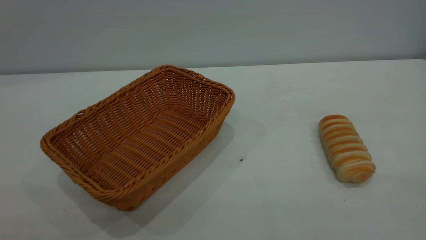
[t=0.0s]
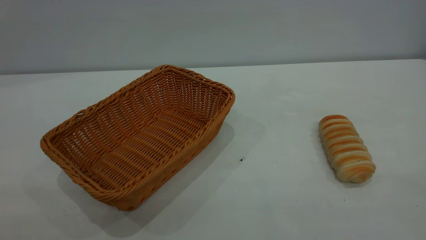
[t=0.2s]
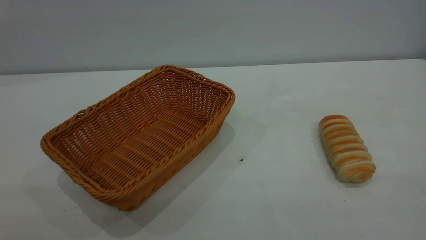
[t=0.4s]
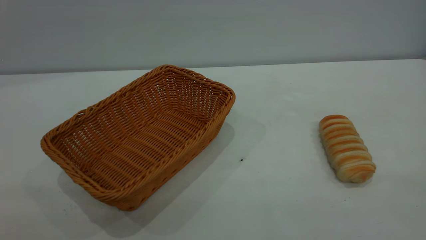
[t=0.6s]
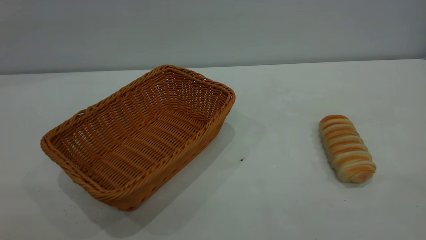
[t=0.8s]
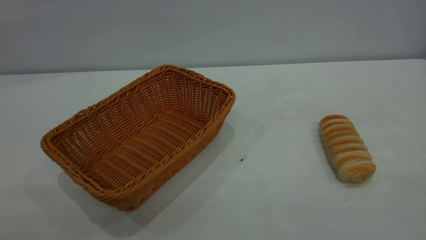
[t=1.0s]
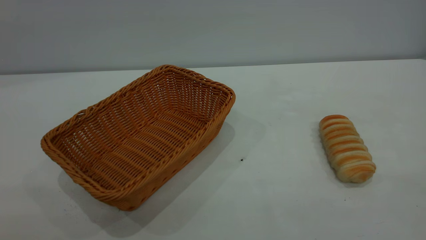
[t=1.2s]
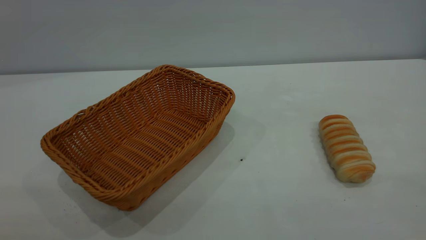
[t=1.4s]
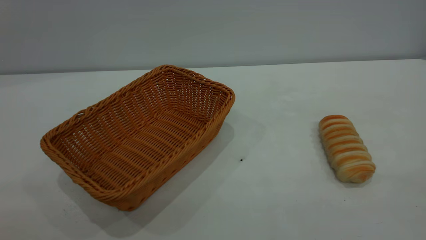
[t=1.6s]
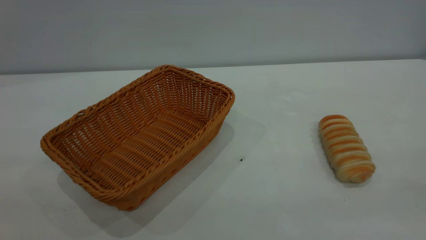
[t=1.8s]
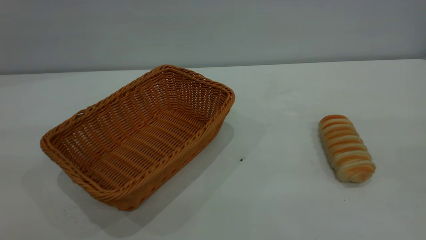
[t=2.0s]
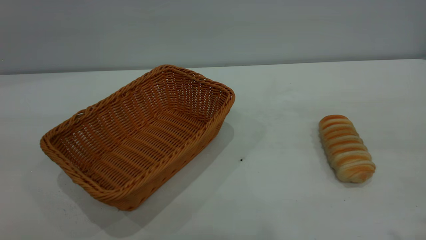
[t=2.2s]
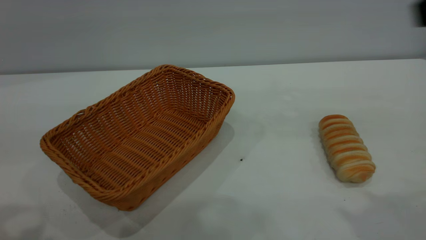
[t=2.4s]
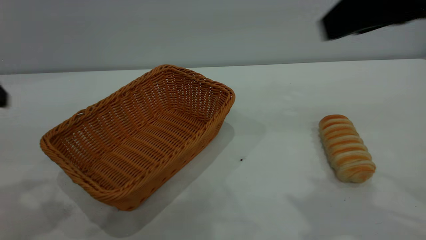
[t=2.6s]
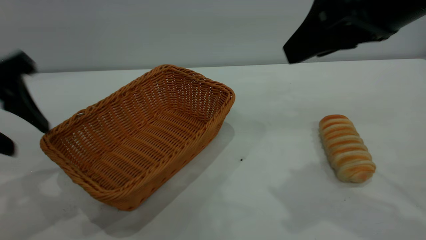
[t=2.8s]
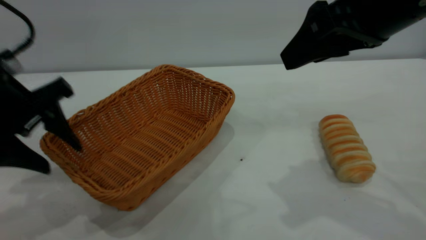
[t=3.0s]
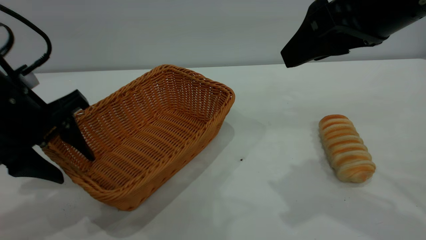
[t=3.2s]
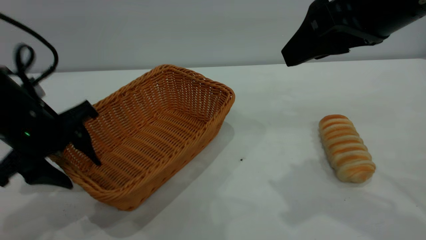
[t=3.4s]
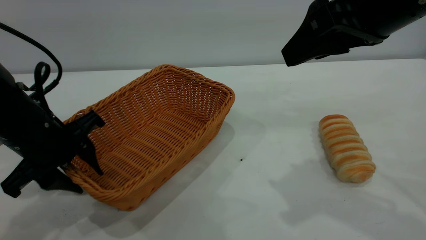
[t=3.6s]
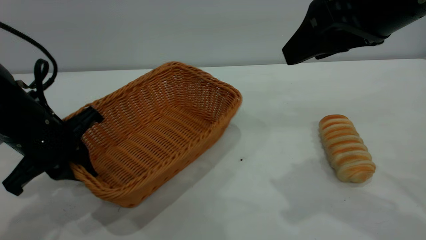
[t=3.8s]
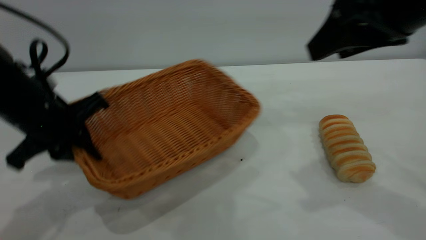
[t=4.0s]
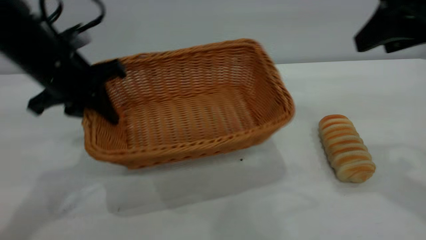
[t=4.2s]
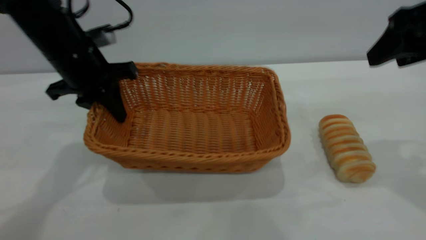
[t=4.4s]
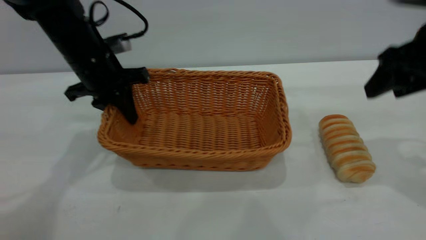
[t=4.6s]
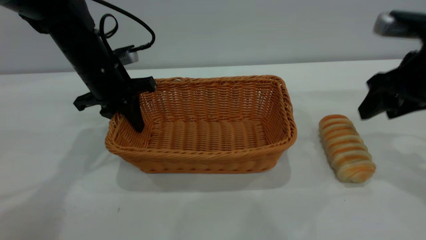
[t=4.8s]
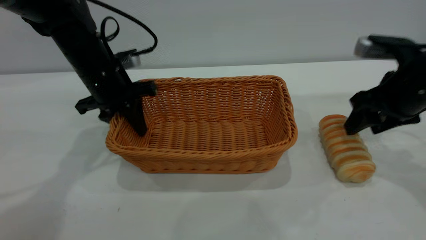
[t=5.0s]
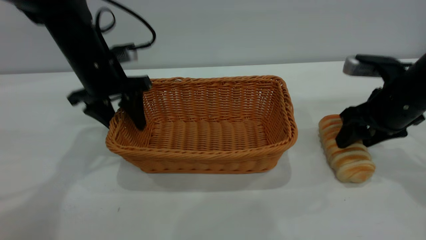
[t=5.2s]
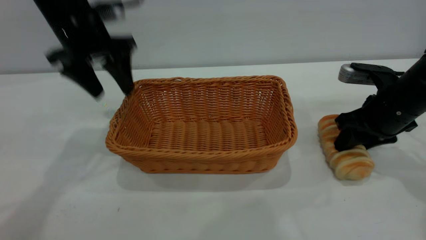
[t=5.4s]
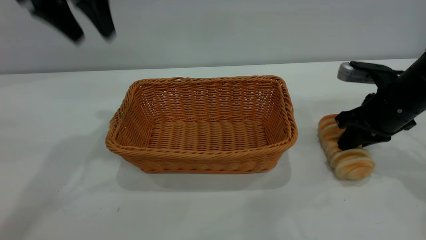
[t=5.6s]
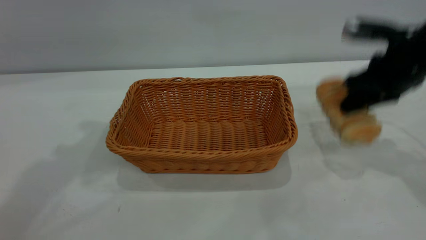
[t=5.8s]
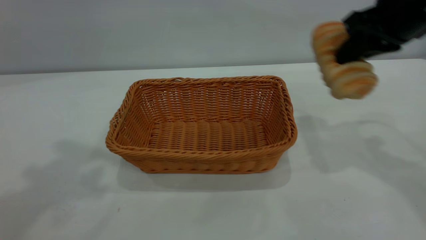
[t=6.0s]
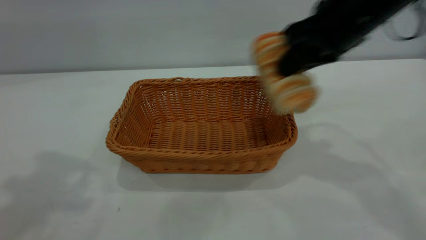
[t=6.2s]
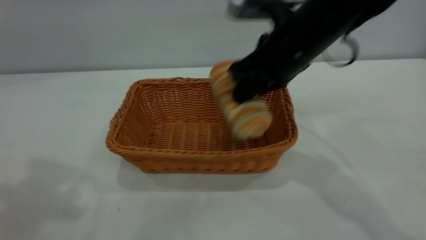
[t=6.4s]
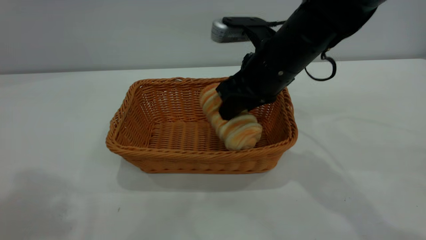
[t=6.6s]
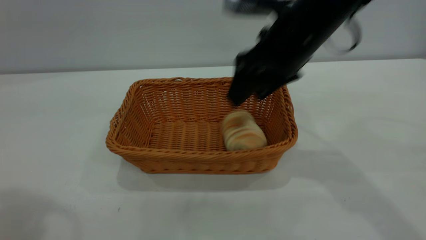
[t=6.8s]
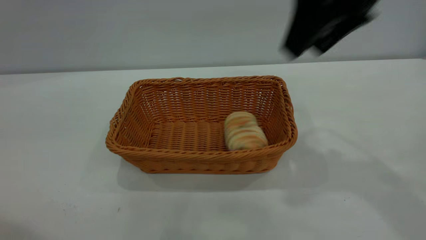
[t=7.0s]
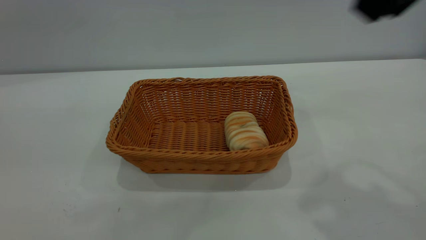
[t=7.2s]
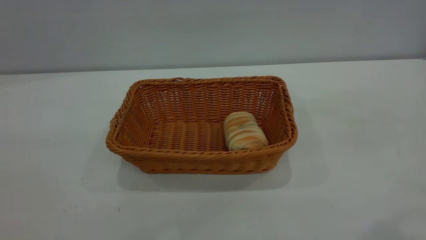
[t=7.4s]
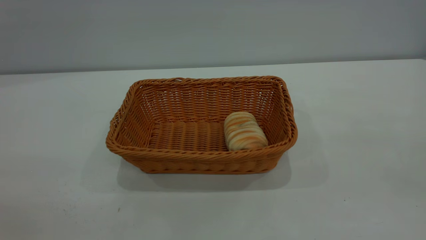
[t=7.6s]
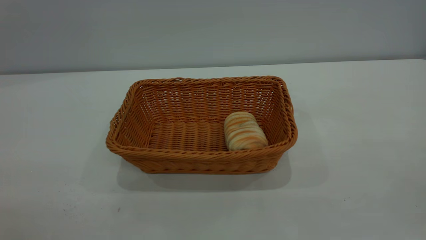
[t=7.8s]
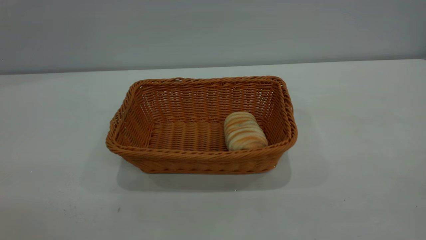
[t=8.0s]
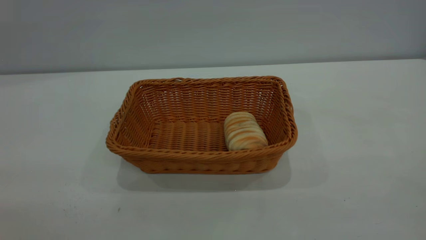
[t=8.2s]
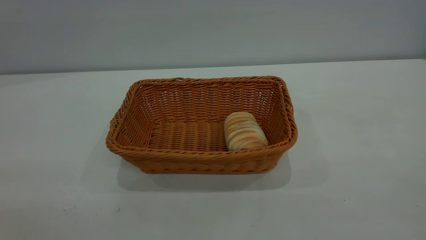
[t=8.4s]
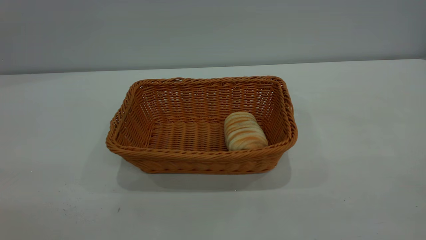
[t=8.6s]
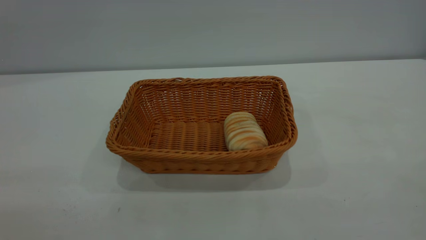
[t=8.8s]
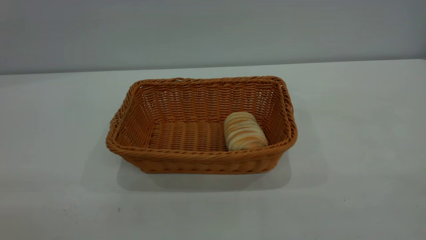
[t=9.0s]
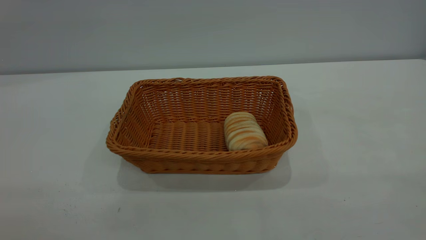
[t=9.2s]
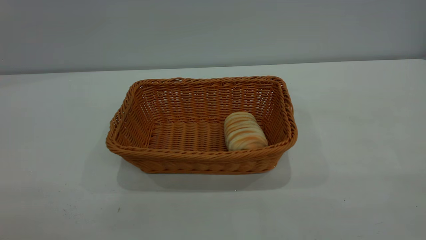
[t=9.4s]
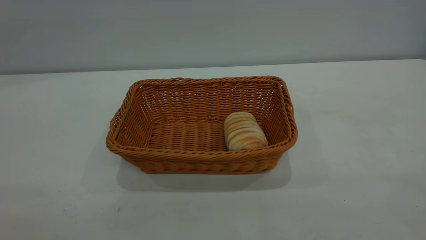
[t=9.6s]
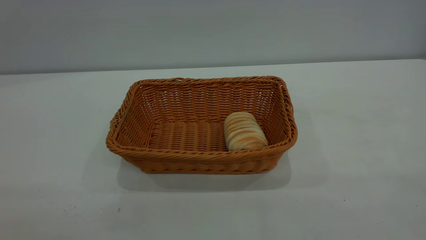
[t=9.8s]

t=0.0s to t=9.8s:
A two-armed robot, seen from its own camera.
Task of the whole recording: One hand grasps the yellow basket and places it in the middle of the table, while the other hand picks up the long bread and puts it into the yellow basket.
Step, t=0.0s to t=5.4s: Move the basket to the center of view.
Step, t=6.0s to t=6.8s: place the bread into the basket.
t=0.0s to t=1.4s: Both grippers stay about where they are.
t=1.4s to t=2.8s: The left gripper moves forward and downward, about 30 cm; the right gripper heads forward and to the left, covering some 30 cm.
t=2.8s to t=4.2s: The right gripper moves to the right, some 10 cm. Meanwhile the left gripper is displaced forward and to the right by some 10 cm, and closes.
t=4.2s to t=5.6s: The right gripper heads downward and forward, covering roughly 20 cm, and closes up. Meanwhile the left gripper moves upward, roughly 15 cm, and opens up.
t=5.6s to t=7.0s: The right gripper goes up and down, some 20 cm each way, reversing 2 times, and opens. Meanwhile the left gripper shifts some 25 cm backward and upward.
t=7.0s to t=8.4s: The right gripper goes some 30 cm backward.
